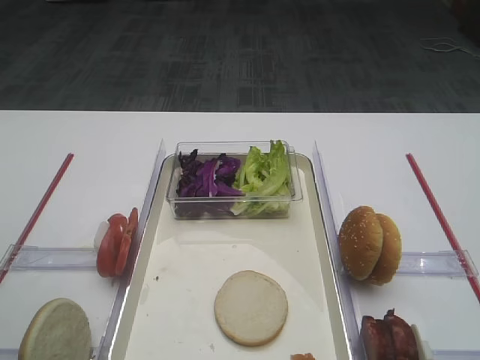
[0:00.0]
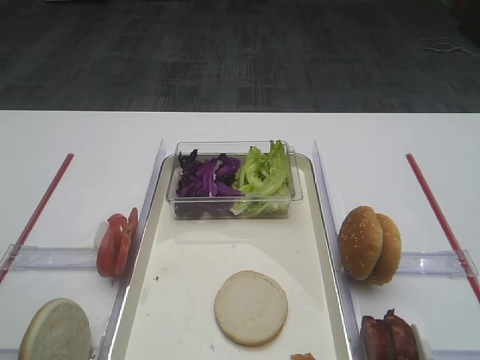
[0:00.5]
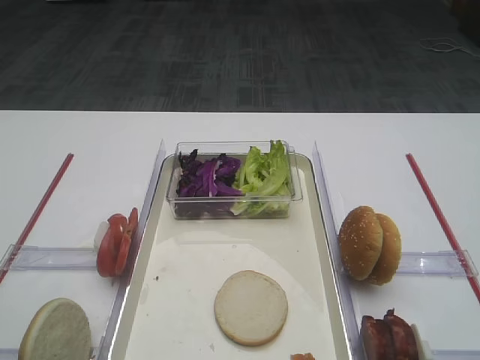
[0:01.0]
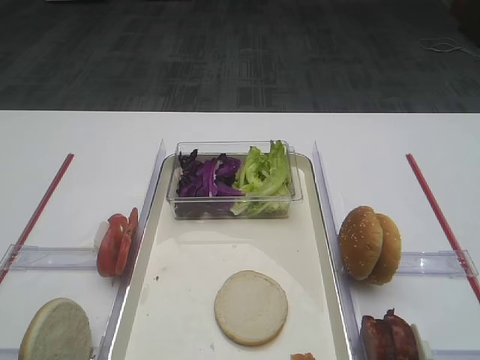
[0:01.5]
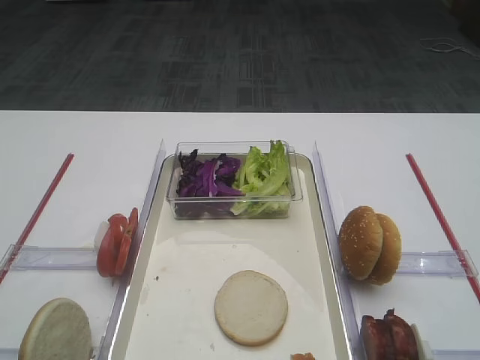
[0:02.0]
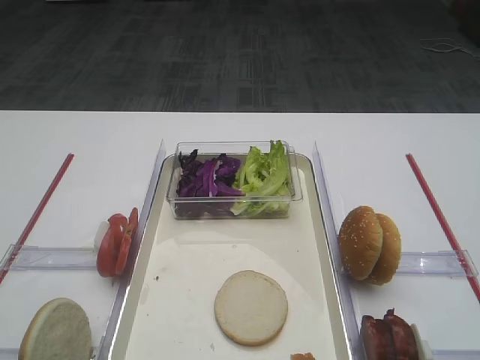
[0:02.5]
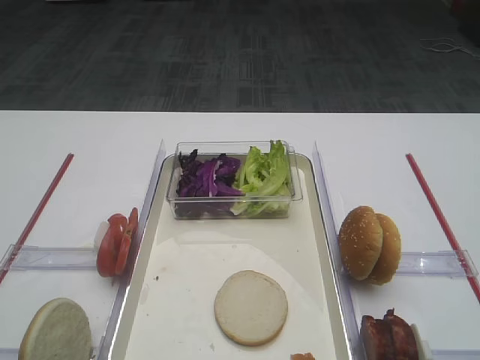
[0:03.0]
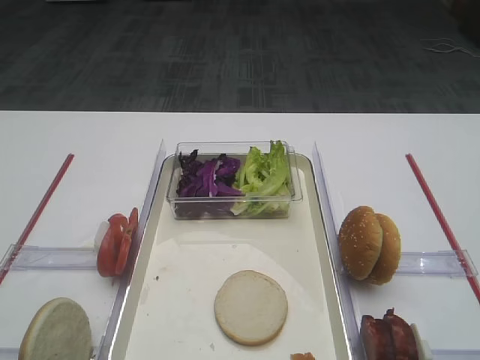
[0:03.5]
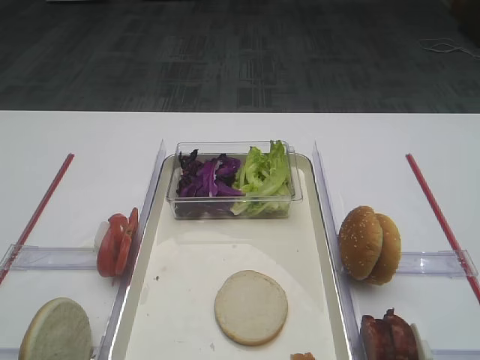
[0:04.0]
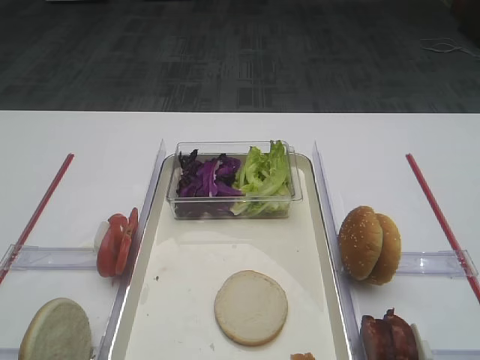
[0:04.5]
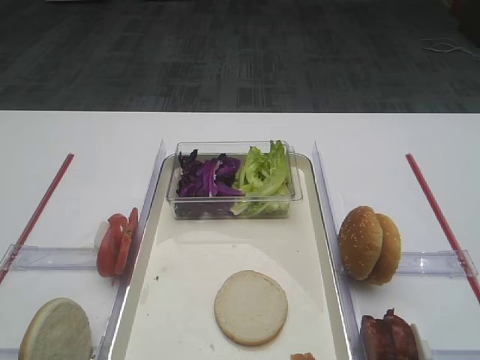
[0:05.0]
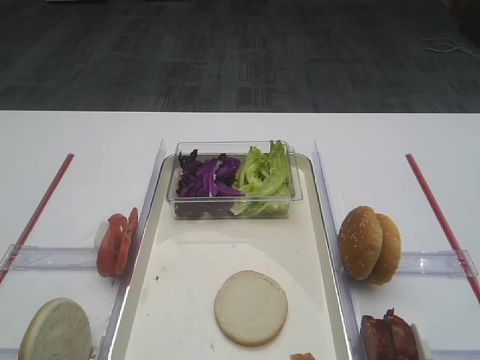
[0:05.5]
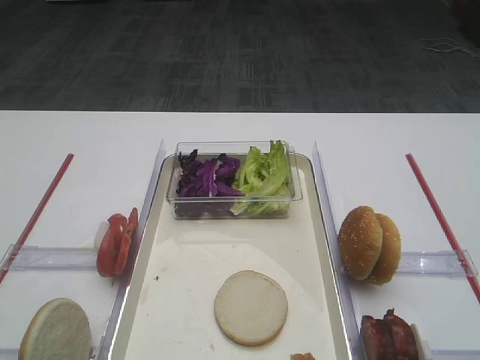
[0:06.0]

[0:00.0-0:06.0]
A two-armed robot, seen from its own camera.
0:04.0 to 0:06.0: Both grippers stay about where they are.

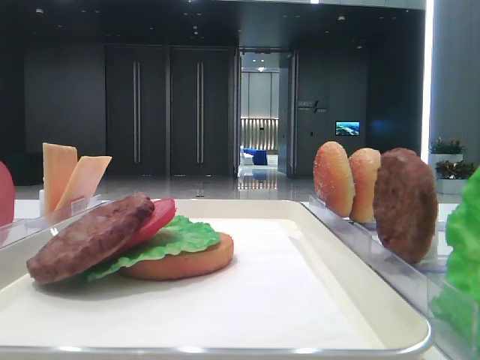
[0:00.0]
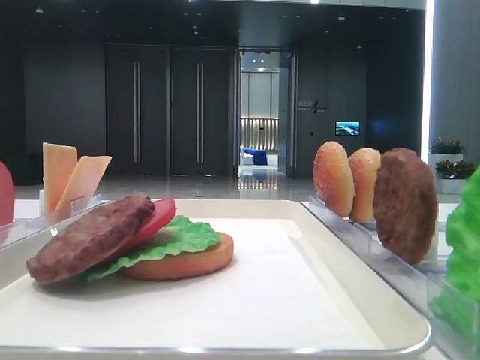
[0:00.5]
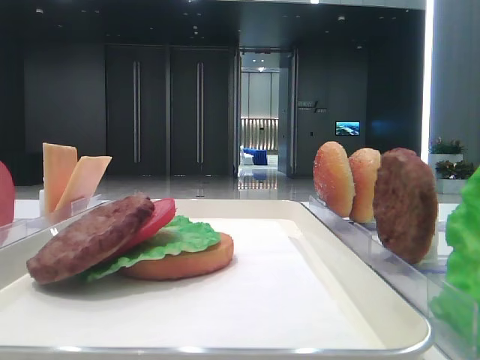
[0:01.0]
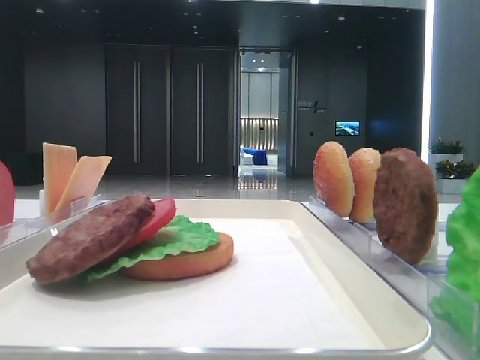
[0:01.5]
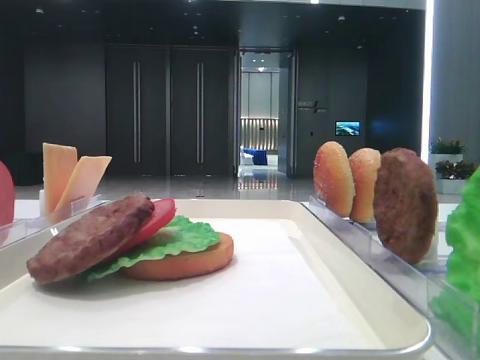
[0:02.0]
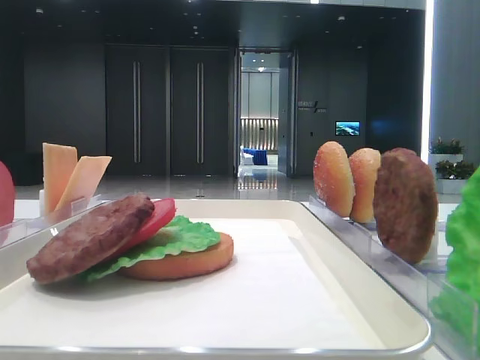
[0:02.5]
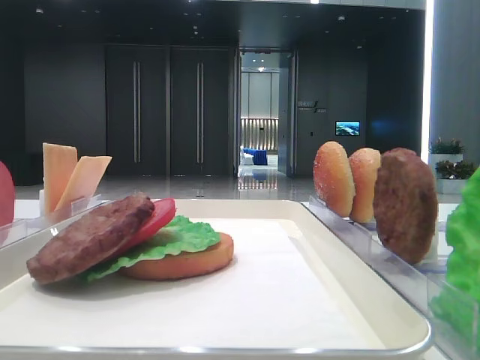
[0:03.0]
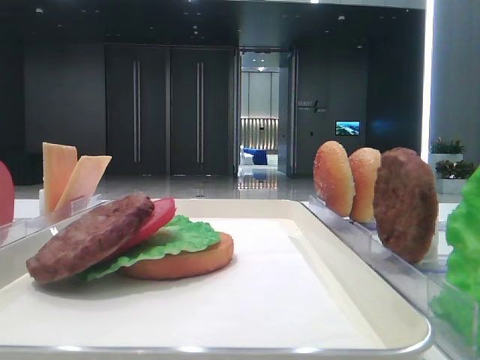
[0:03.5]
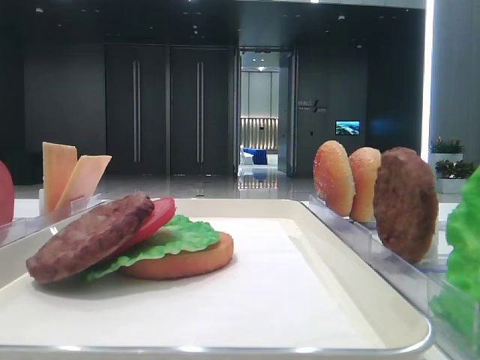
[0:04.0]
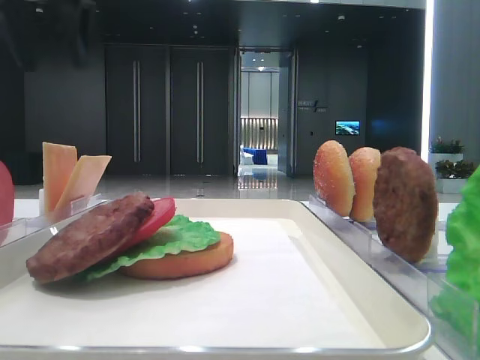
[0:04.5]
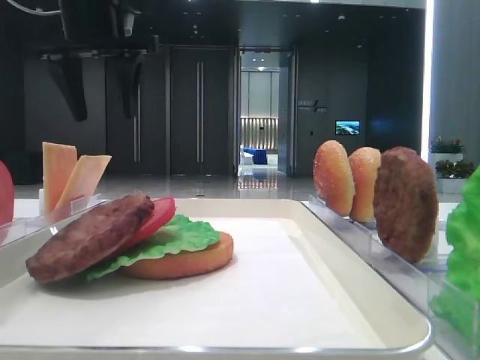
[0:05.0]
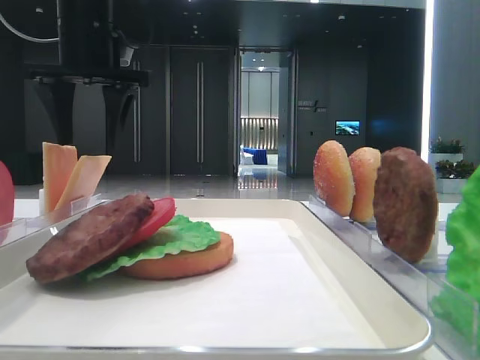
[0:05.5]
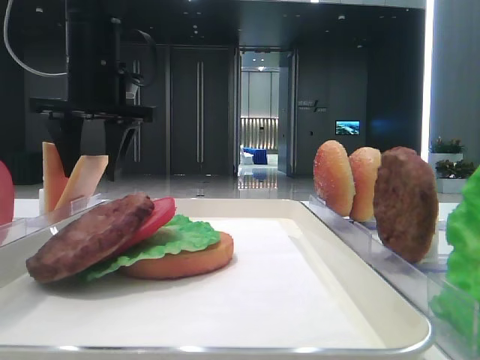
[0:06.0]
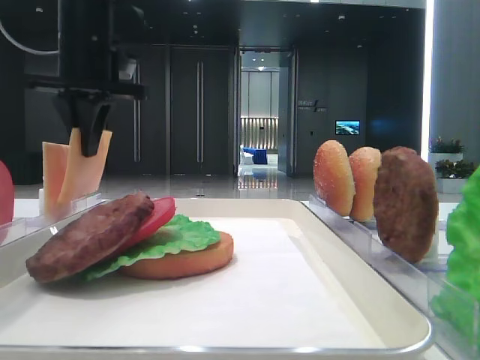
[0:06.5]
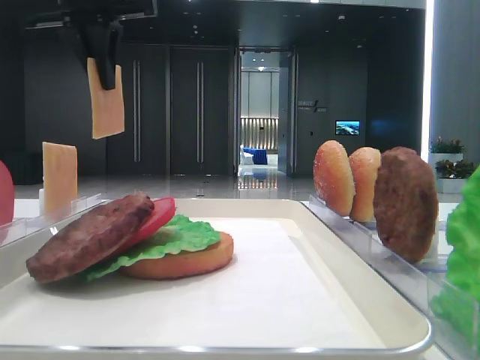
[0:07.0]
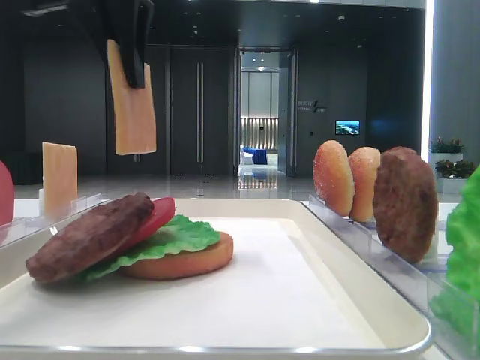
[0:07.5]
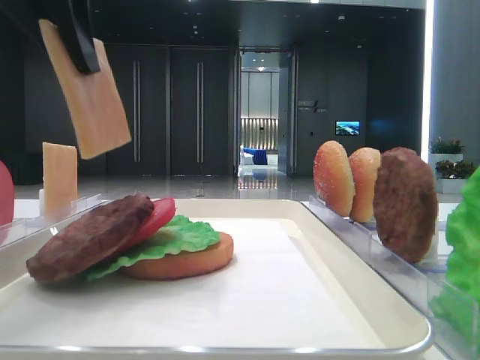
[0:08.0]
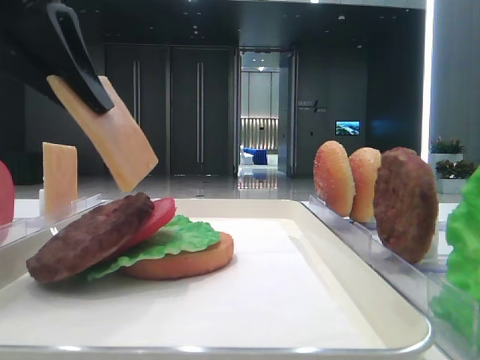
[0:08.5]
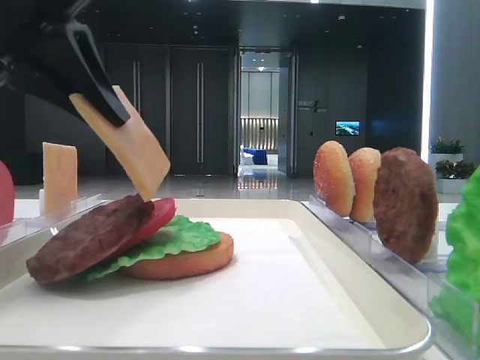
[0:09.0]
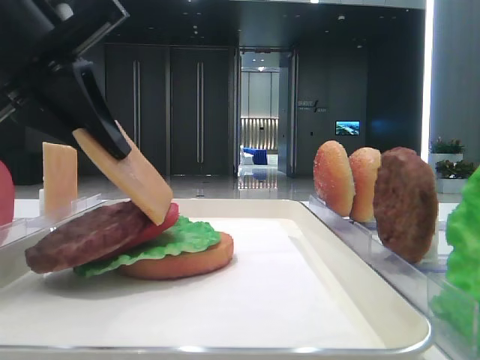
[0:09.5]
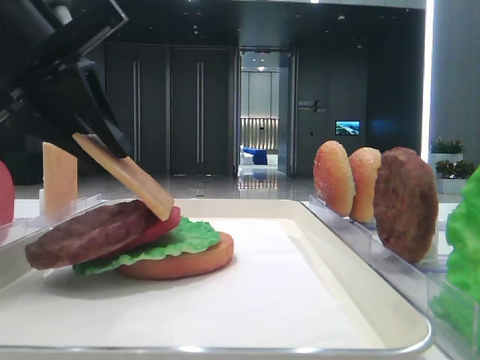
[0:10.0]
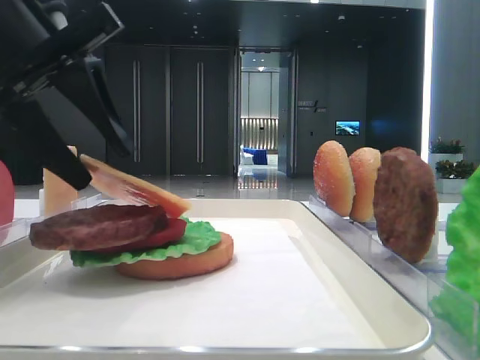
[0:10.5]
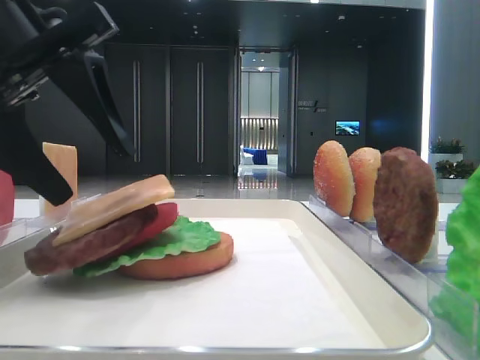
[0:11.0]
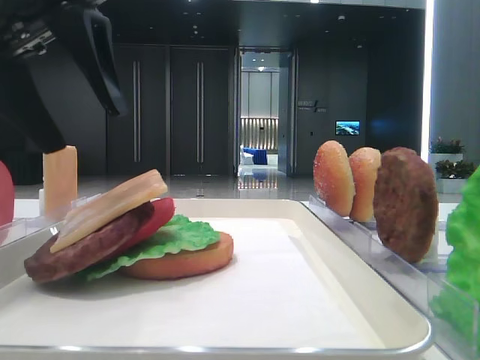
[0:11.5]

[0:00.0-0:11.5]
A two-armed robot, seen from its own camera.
Step, 0:00.0 to 0:06.0: Pick up the cheese slice with the left hand.
Step, 0:06.5 to 0:10.5: Place the cheese slice on the patty with the left hand.
0:02.0 to 0:04.0: The left gripper heads forward, covering some 35 cm, and opens.
0:04.0 to 0:06.0: The left gripper shifts approximately 20 cm downward, to the right and forward.
0:06.0 to 0:07.5: The left gripper goes roughly 15 cm backward and upward, and closes up.
0:07.5 to 0:09.5: The left gripper is displaced downward and to the left by roughly 10 cm.
0:09.5 to 0:11.5: The left gripper opens up.

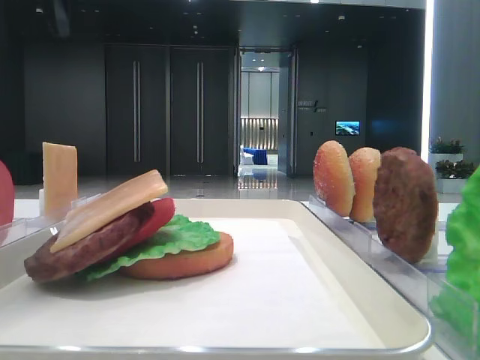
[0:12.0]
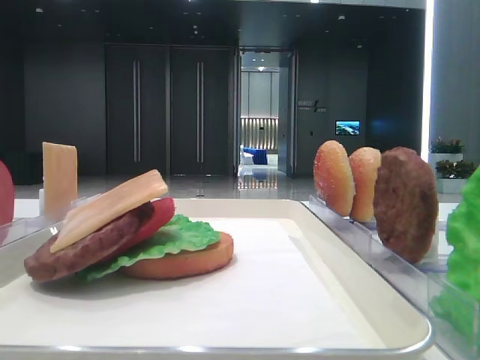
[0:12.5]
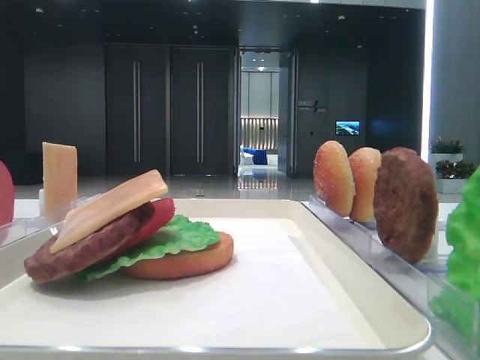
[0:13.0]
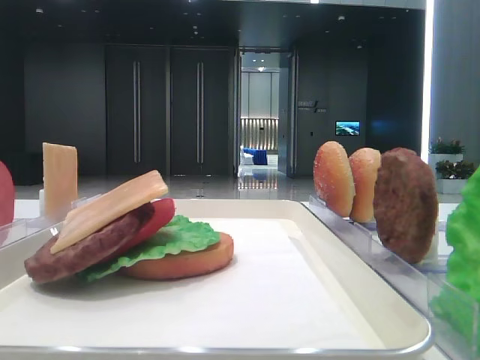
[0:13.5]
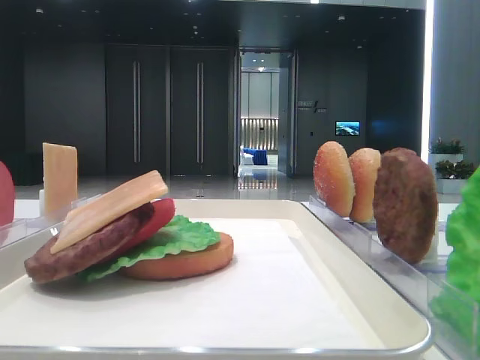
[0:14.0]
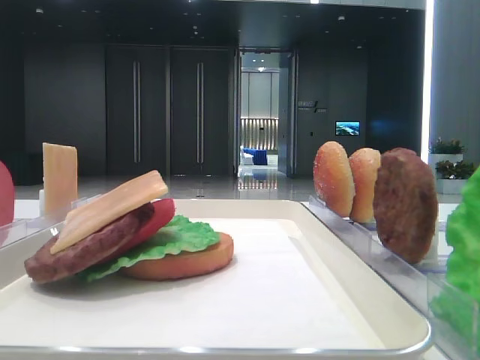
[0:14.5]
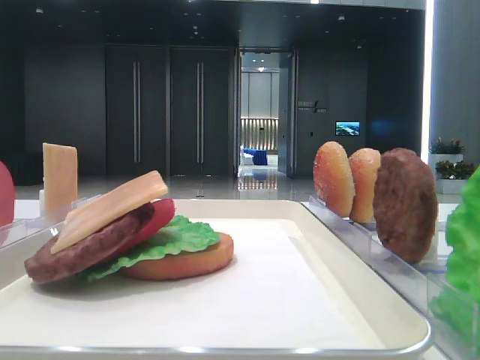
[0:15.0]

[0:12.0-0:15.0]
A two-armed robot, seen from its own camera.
0:12.0 to 0:13.5: The left gripper shifts some 25 cm backward and to the left.

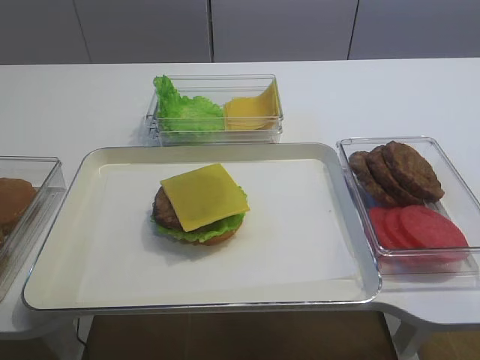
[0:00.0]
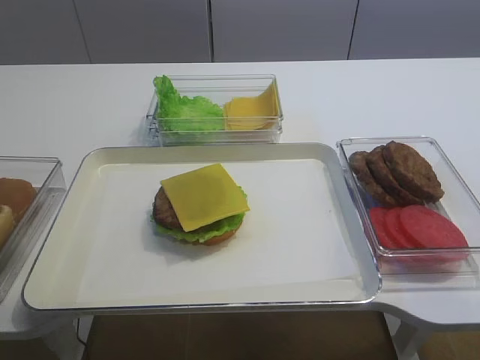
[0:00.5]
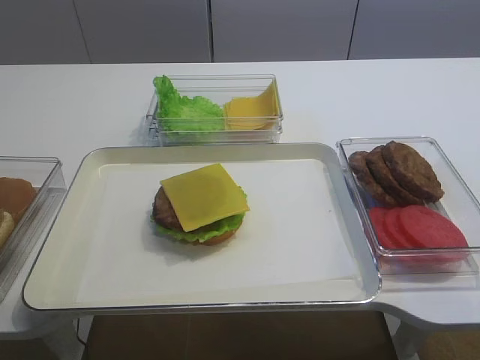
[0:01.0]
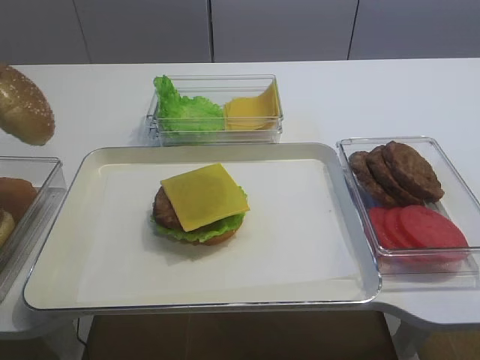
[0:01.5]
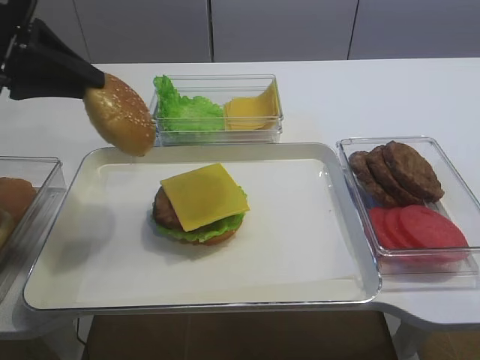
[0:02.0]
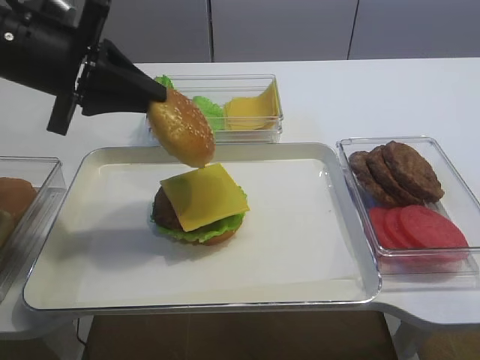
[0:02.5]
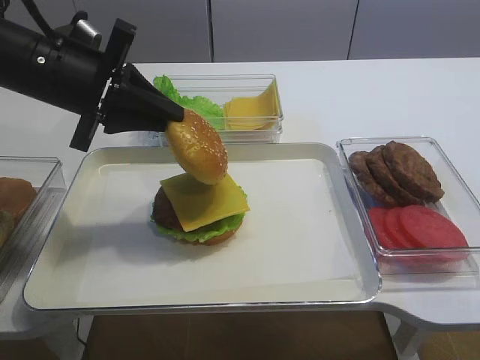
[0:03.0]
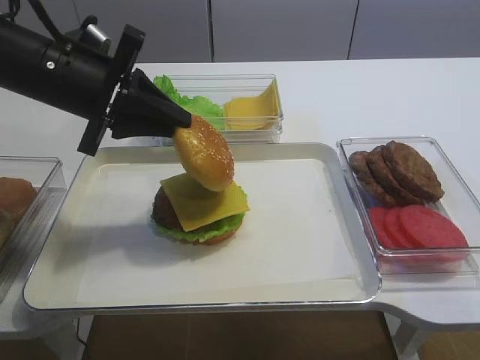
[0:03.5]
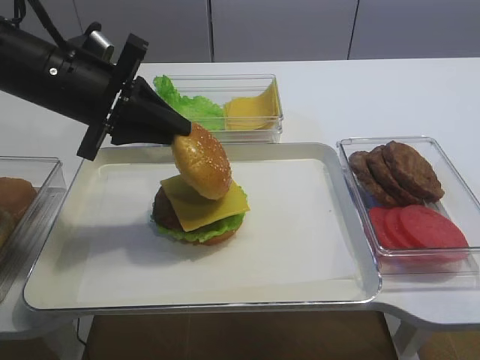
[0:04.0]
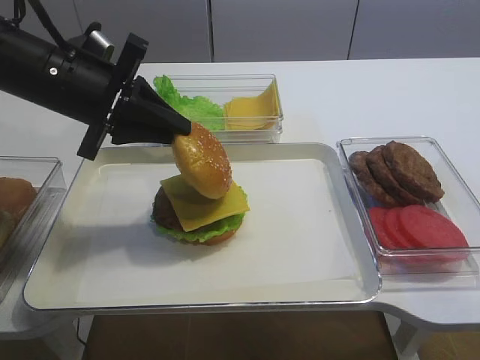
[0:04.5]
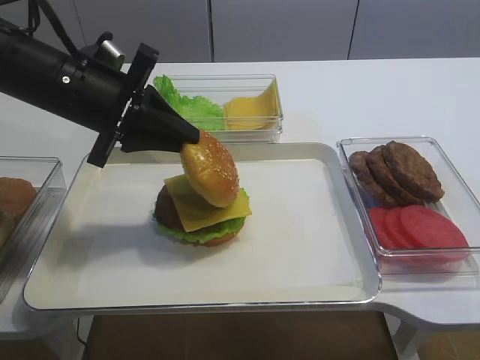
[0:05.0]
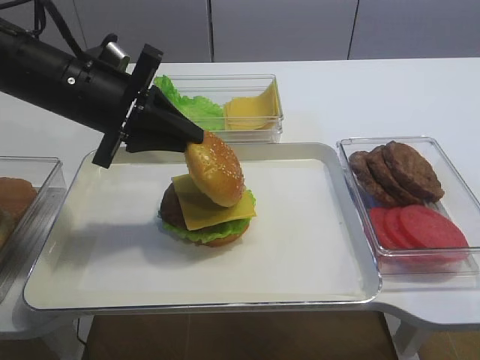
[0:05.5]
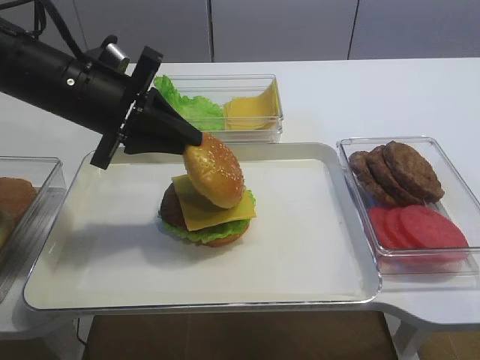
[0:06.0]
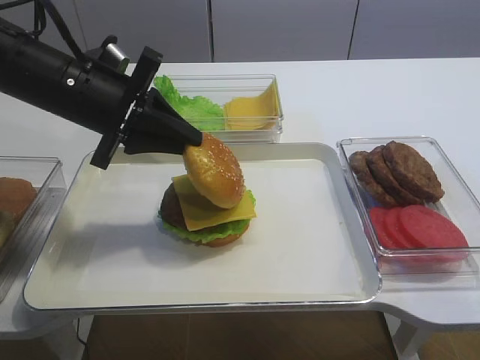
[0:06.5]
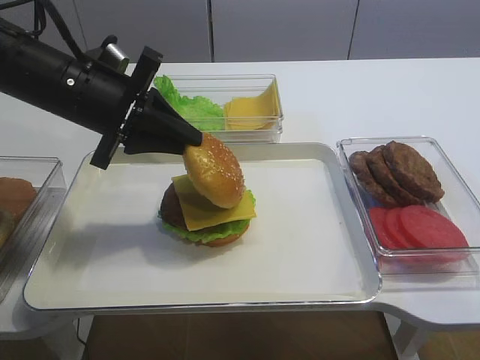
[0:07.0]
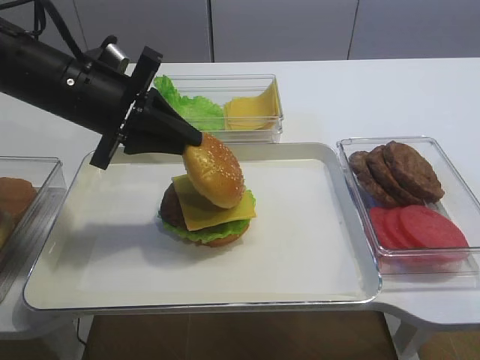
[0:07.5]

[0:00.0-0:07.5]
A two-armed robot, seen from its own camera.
0:00.0 to 0:02.0: The left gripper travels to the right and forward by about 10 cm.
0:02.0 to 0:04.0: The left gripper goes approximately 10 cm to the right and downward.
0:04.0 to 0:05.5: The grippers move only a little.
0:05.5 to 0:07.5: Both grippers stay put.
